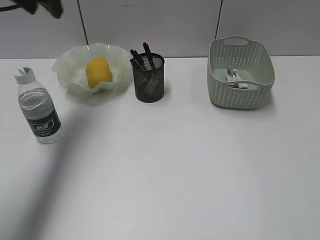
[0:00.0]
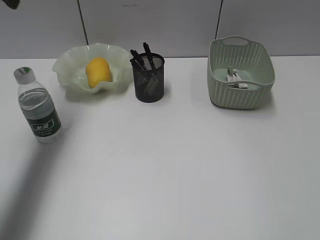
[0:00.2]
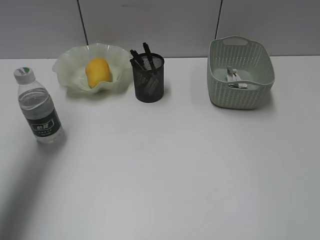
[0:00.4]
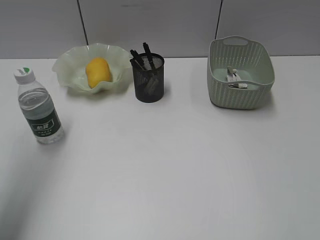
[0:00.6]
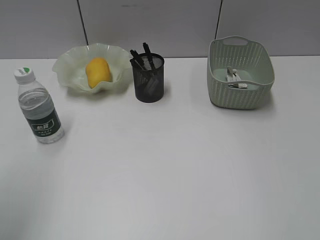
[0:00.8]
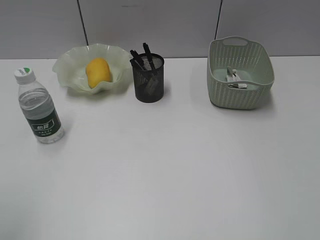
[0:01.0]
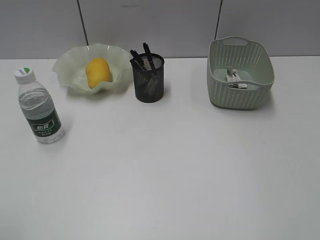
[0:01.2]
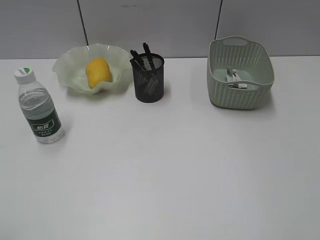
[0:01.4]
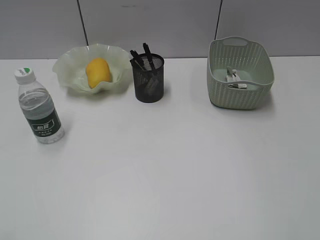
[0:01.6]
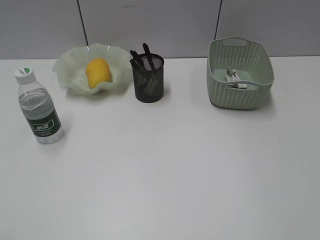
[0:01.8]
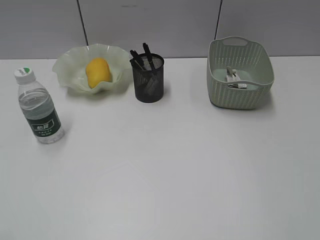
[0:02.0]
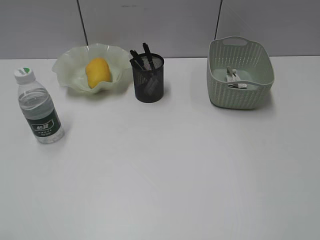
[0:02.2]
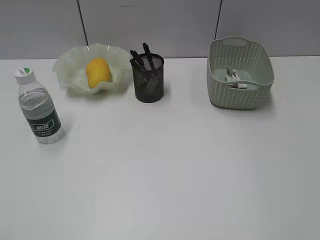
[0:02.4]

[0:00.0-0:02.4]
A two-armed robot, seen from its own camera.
0:00.0 to 0:01.2: The left gripper heads backward, covering about 40 cm.

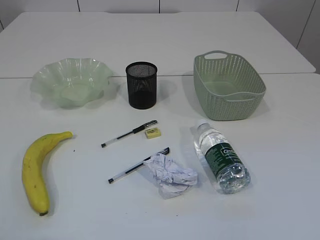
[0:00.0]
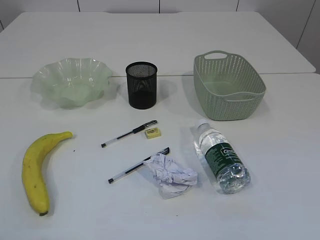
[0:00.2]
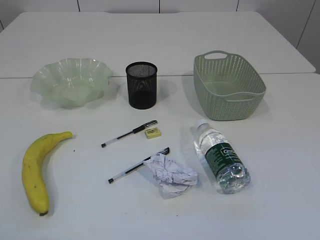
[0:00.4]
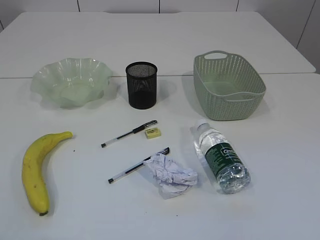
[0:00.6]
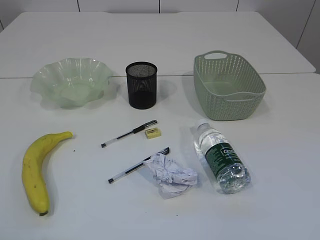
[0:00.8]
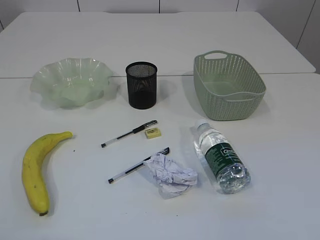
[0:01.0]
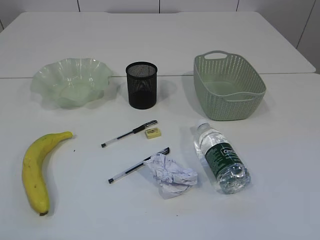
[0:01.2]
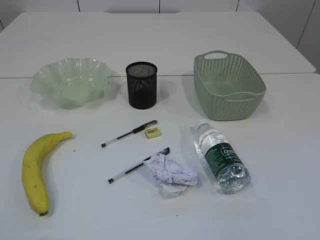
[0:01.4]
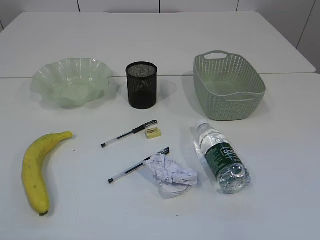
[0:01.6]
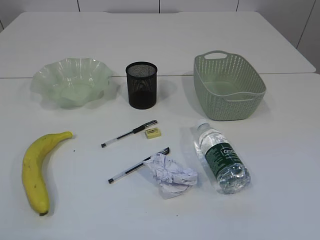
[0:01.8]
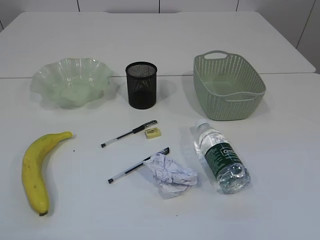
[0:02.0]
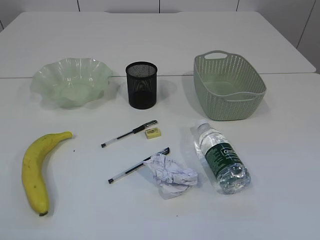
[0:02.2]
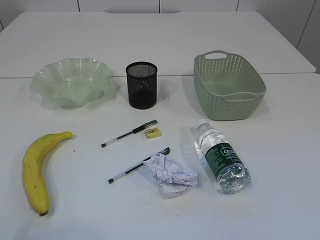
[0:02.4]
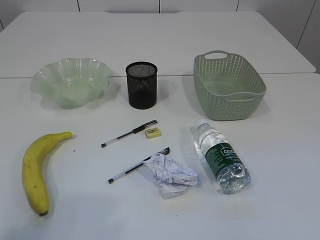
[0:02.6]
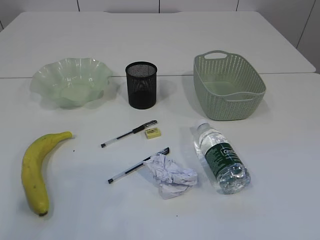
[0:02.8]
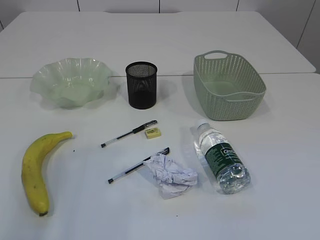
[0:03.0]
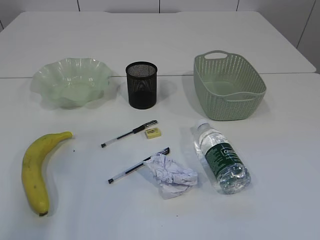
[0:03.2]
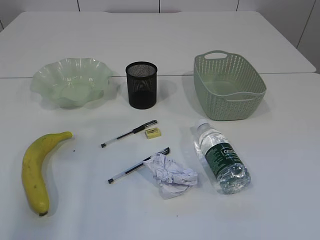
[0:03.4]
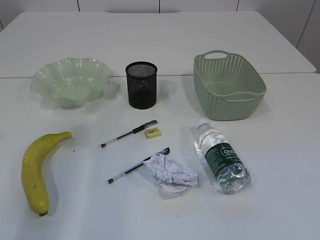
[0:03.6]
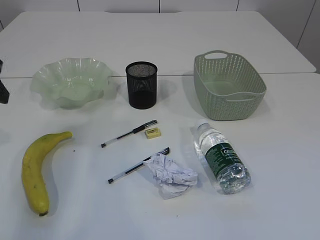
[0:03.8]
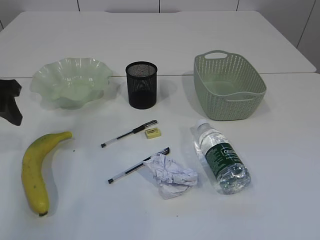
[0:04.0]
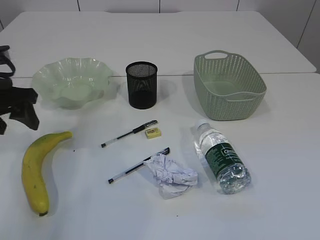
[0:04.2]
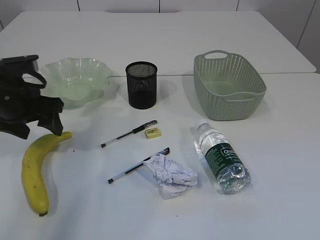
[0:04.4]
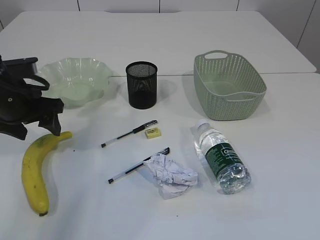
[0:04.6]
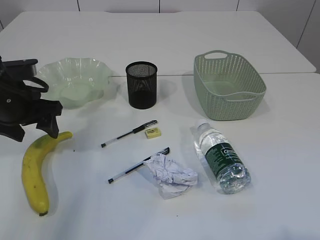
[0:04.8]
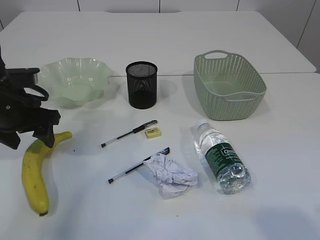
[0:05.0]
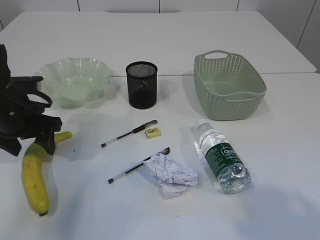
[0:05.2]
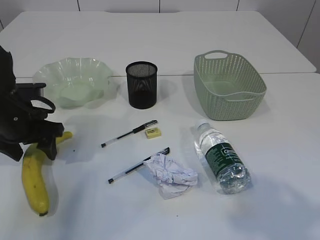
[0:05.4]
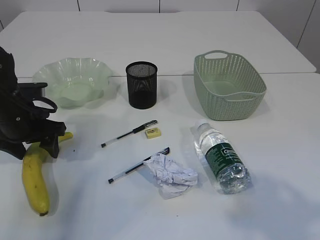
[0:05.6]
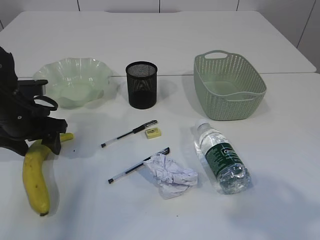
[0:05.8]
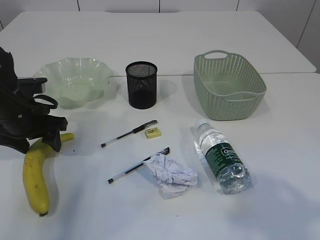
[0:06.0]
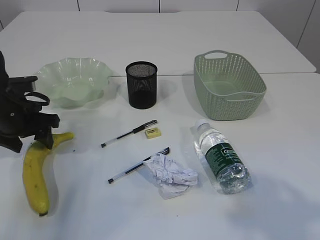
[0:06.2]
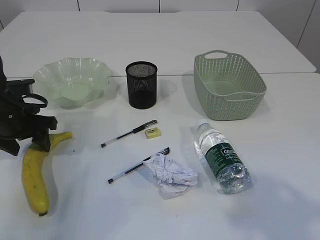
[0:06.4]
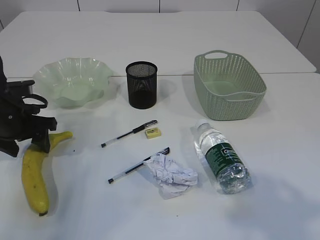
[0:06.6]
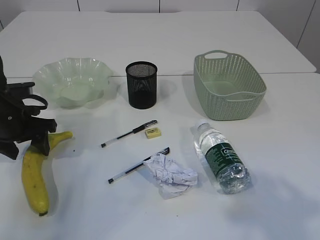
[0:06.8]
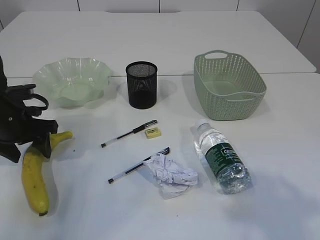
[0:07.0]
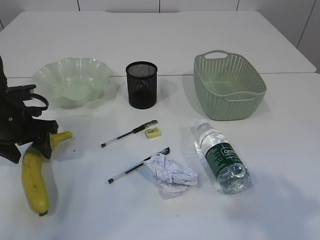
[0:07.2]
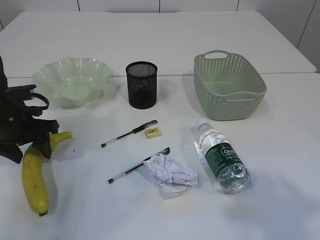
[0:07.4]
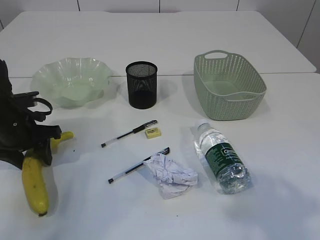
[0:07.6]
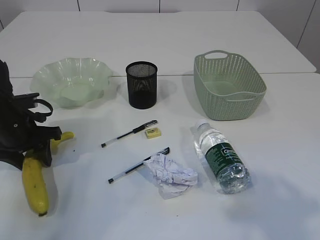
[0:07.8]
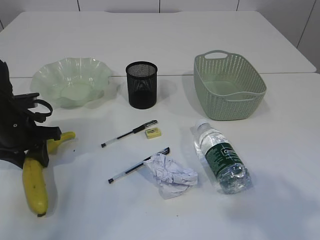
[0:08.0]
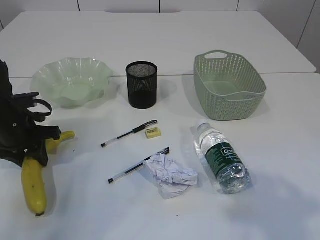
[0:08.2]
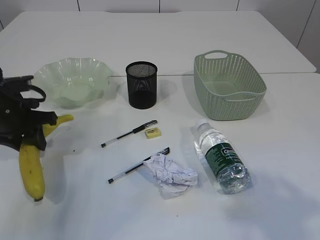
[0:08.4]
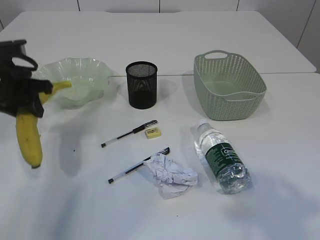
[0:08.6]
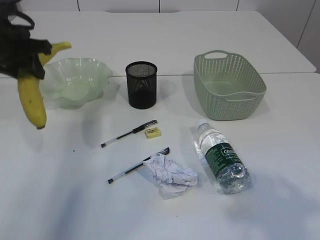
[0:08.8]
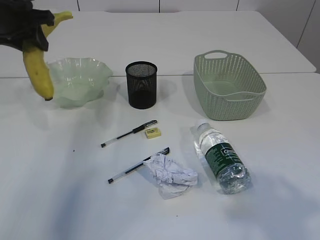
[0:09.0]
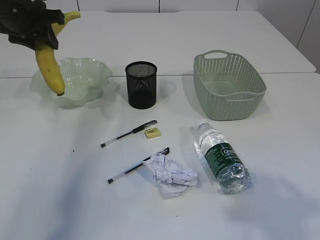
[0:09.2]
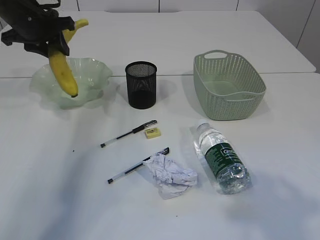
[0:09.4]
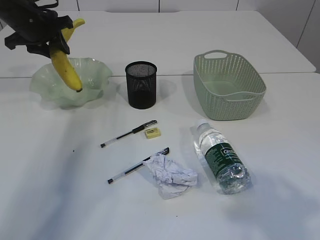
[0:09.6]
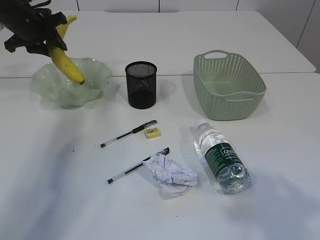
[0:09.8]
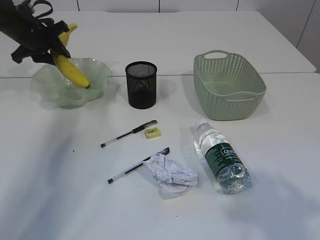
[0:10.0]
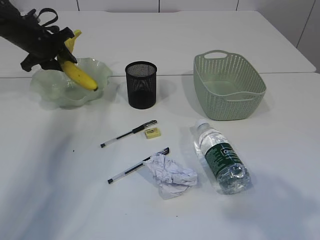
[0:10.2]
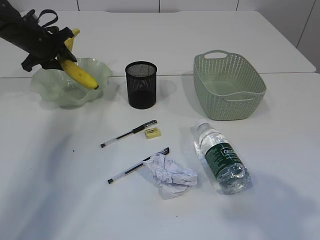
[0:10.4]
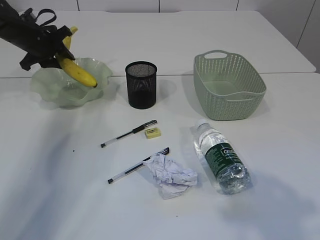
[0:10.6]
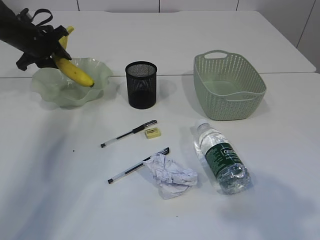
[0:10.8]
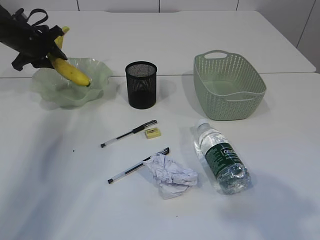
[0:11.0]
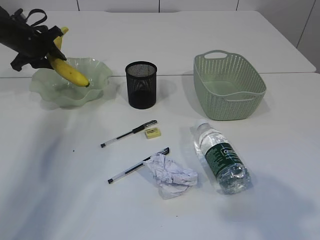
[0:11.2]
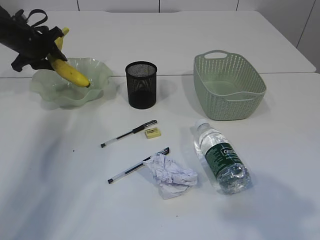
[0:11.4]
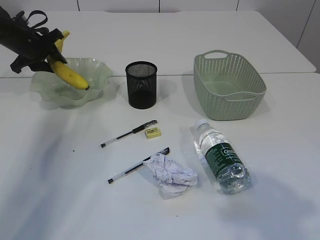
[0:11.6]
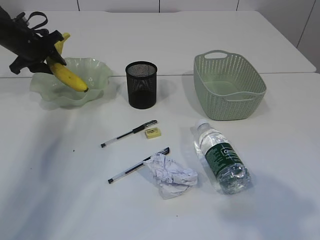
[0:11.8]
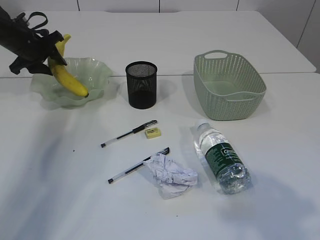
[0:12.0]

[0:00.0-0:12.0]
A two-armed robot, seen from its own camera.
0:01.6 to 0:03.0: The left gripper moves forward and upward, some 15 cm.
0:03.0 to 0:04.4: The left gripper travels forward and downward by roughly 25 cm.
0:06.0 to 0:07.6: The grippers make only small movements.
0:07.6 to 0:09.0: The left gripper goes about 20 cm upward and forward.
0:09.0 to 0:10.4: The left gripper travels forward and downward by approximately 15 cm.
0:10.4 to 0:12.0: The grippers make only small movements.

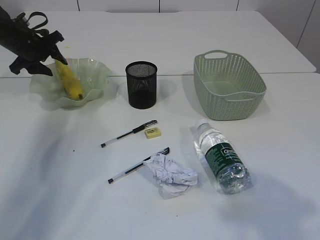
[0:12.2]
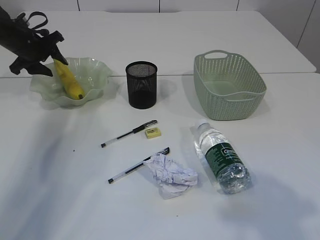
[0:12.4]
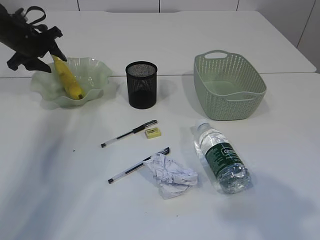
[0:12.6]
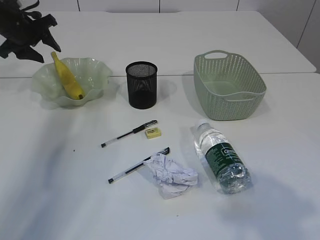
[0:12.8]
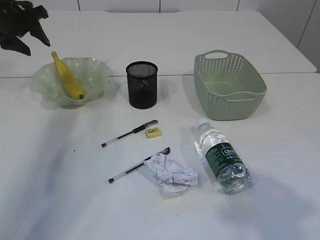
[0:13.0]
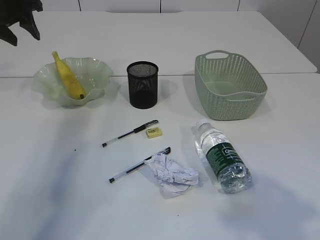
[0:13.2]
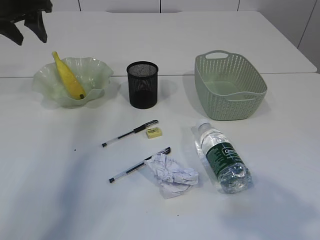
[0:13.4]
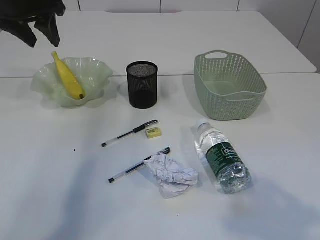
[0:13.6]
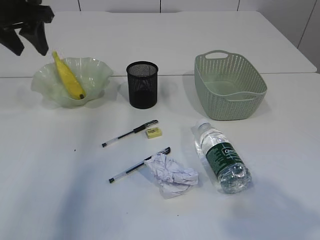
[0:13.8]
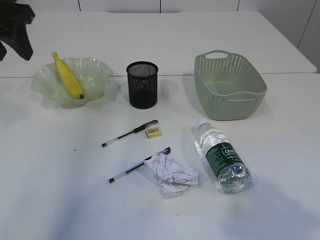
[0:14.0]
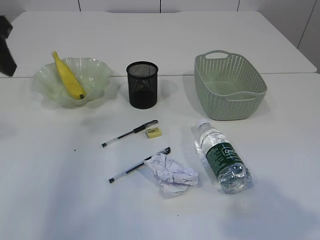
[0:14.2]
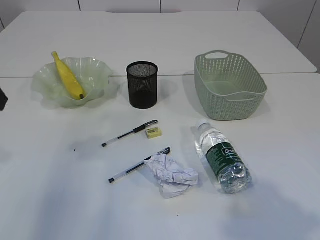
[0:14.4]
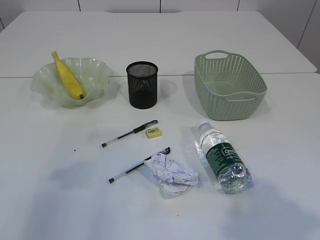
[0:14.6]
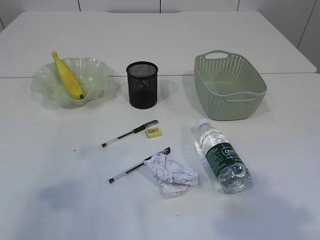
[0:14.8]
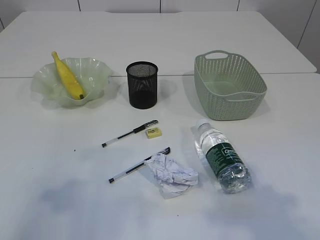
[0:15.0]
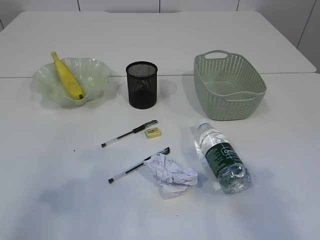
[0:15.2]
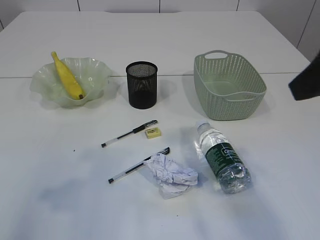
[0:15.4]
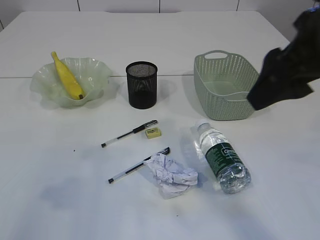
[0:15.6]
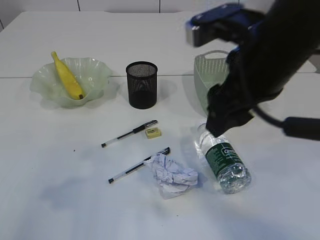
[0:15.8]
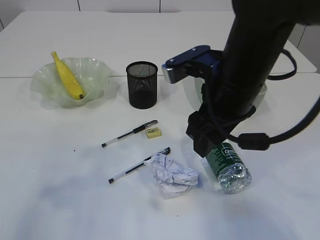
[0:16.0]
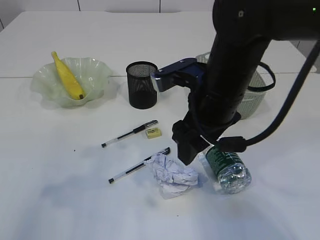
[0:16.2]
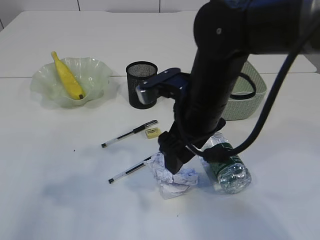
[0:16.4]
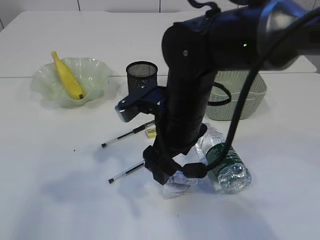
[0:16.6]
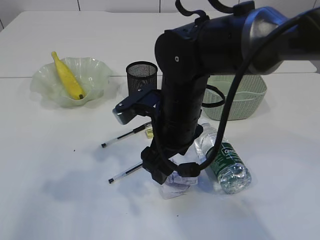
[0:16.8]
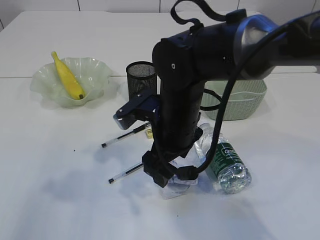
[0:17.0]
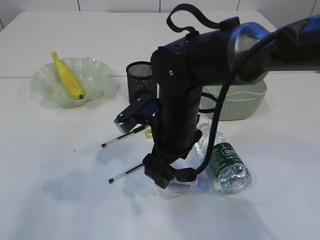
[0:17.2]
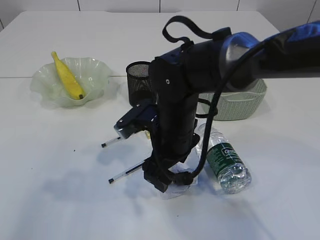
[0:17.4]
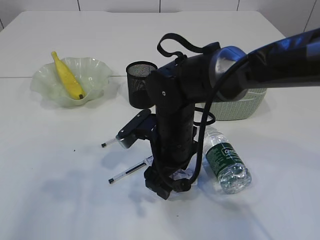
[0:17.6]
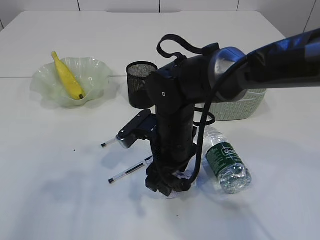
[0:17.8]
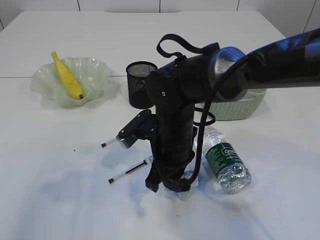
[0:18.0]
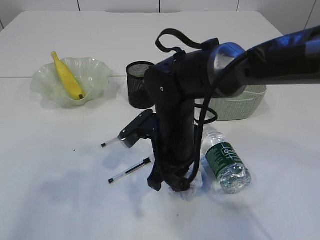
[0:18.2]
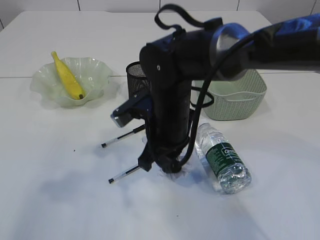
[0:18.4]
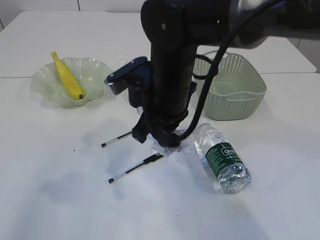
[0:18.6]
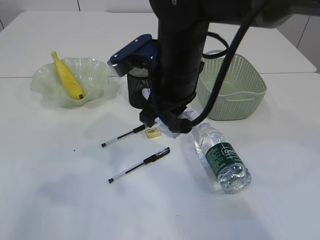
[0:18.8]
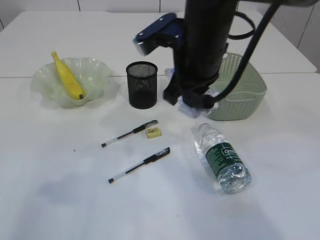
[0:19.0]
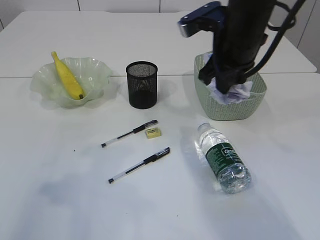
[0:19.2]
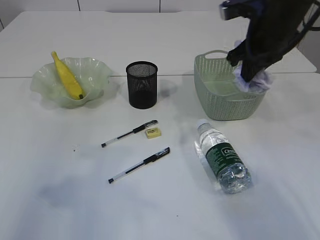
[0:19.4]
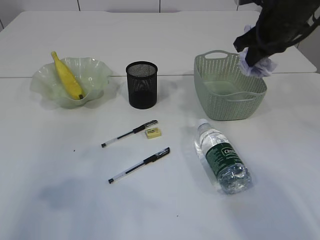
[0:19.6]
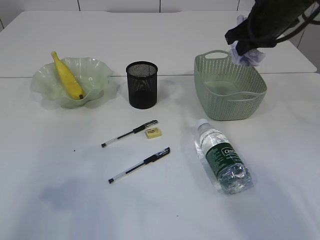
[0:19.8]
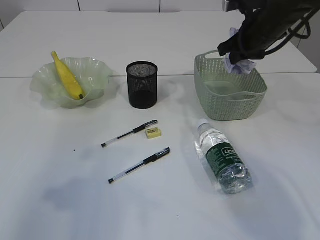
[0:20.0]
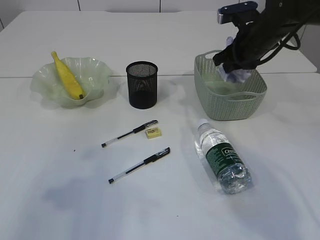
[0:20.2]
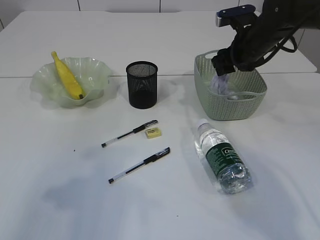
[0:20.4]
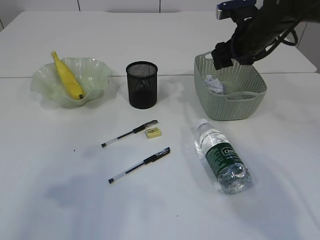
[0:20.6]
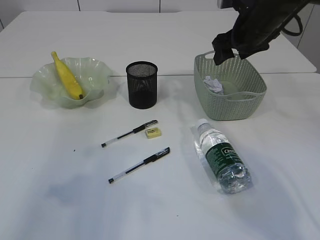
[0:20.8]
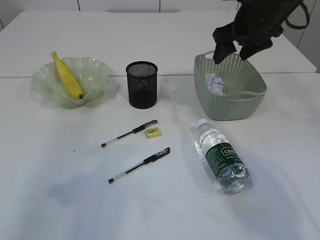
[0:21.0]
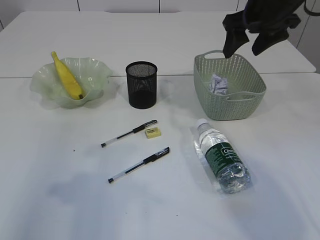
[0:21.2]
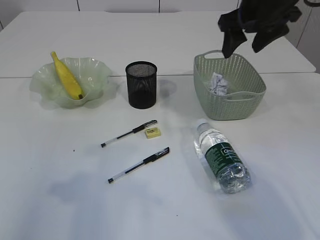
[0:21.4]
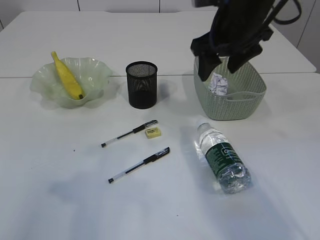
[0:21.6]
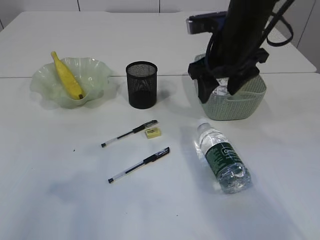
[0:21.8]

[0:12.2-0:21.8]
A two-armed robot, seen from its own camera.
Step, 0:13.0 to 0:18.6: Pick up the waste paper.
Step, 0:18.8 to 0:20.8: Place the waste paper in the basket.
0:12.2 to 0:13.8: The left gripper goes approximately 20 cm upward, backward and to the right.
0:13.8 to 0:15.4: The left gripper heads backward, covering approximately 25 cm. The right gripper travels forward and to the left by roughly 15 cm.
0:15.4 to 0:17.0: The right gripper travels downward, to the left and forward by roughly 30 cm.
0:17.0 to 0:18.6: The right gripper shifts by roughly 5 cm, and closes its fingers.
0:18.6 to 0:20.2: The right gripper goes about 25 cm to the right and forward.
0:20.2 to 0:21.8: The right gripper travels backward and to the left by approximately 10 cm, and opens up.
